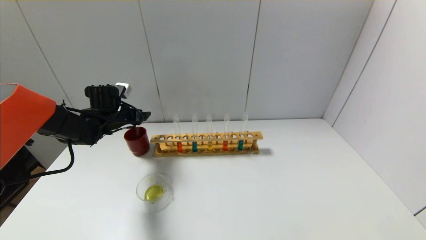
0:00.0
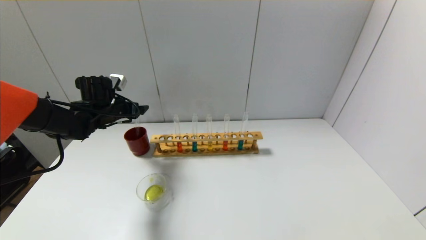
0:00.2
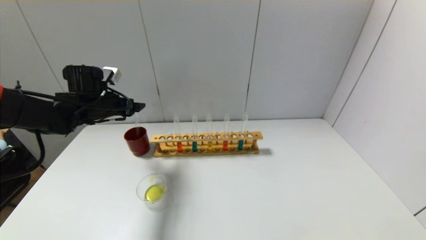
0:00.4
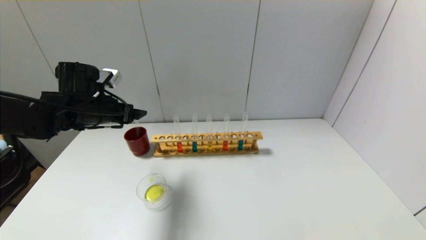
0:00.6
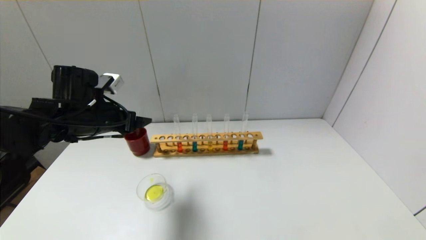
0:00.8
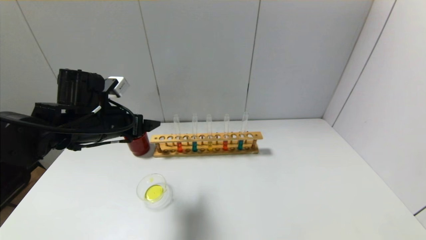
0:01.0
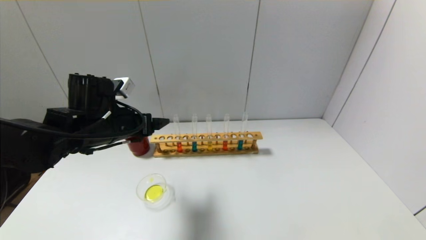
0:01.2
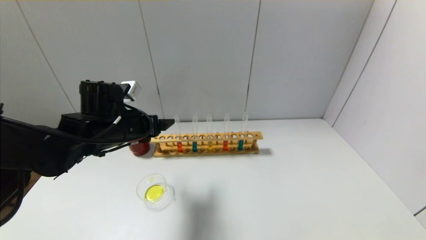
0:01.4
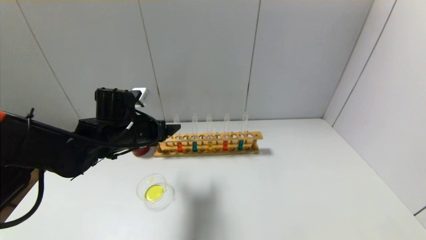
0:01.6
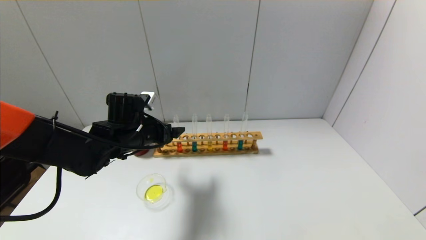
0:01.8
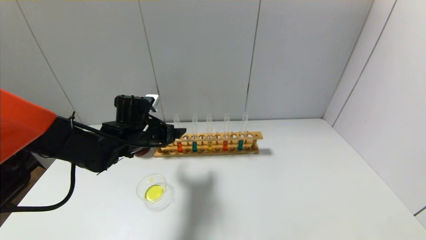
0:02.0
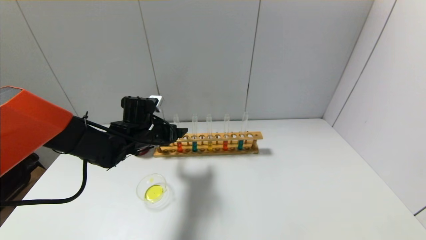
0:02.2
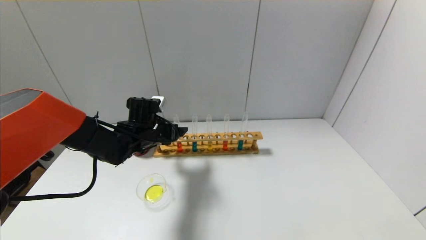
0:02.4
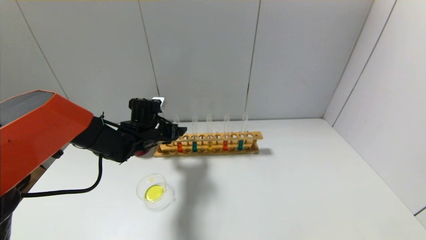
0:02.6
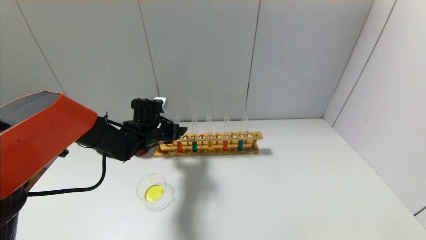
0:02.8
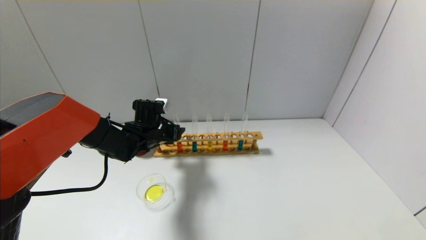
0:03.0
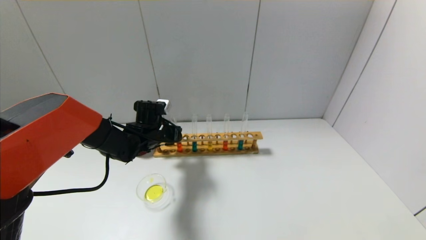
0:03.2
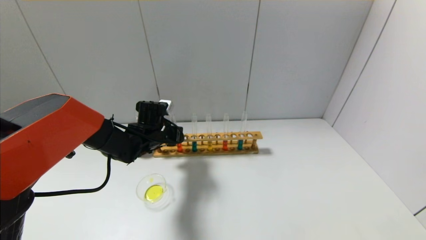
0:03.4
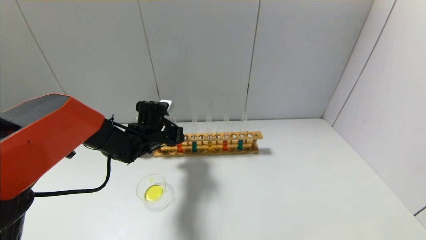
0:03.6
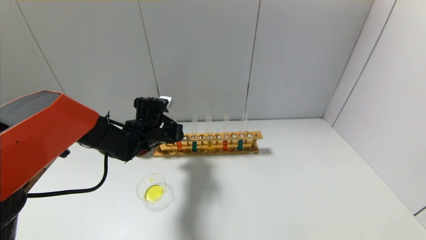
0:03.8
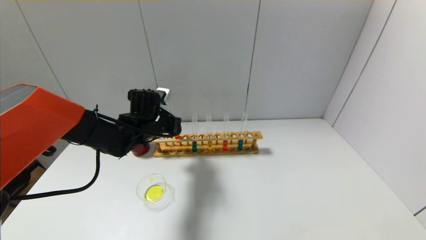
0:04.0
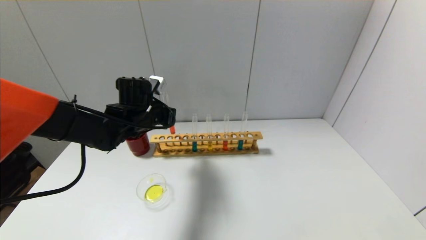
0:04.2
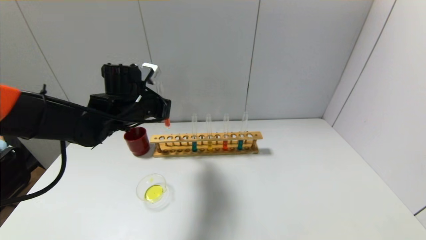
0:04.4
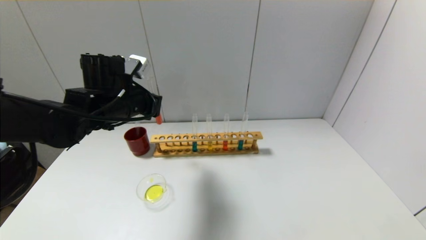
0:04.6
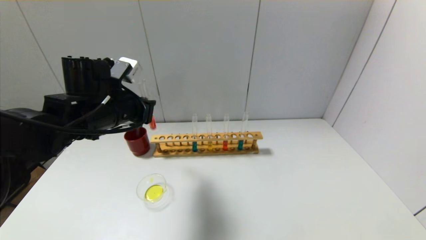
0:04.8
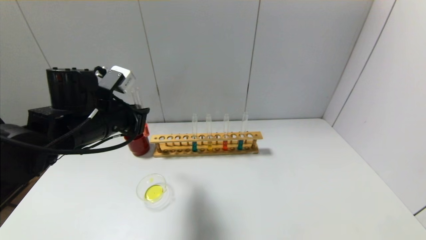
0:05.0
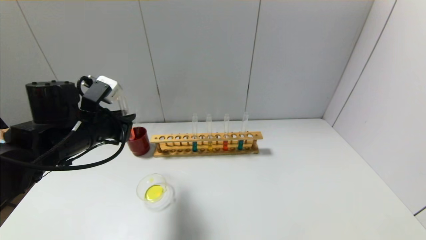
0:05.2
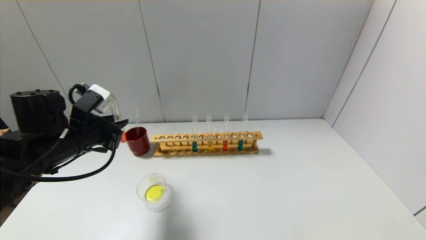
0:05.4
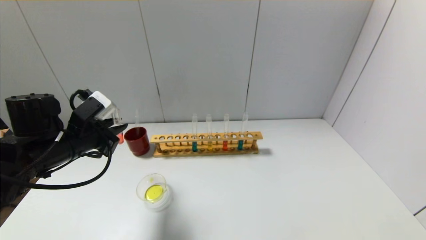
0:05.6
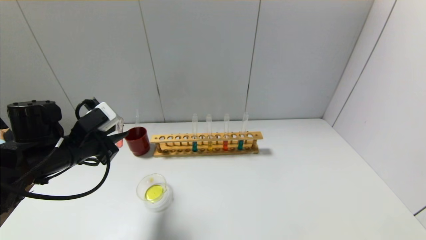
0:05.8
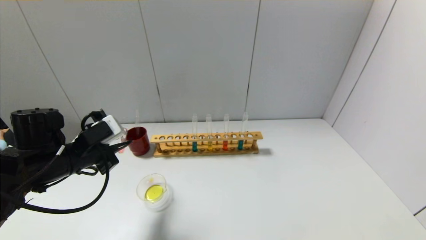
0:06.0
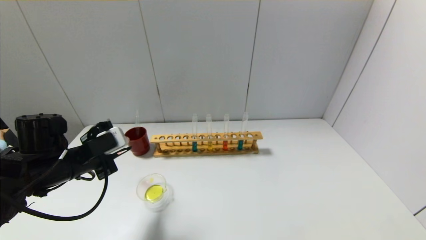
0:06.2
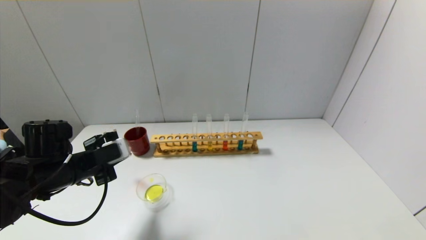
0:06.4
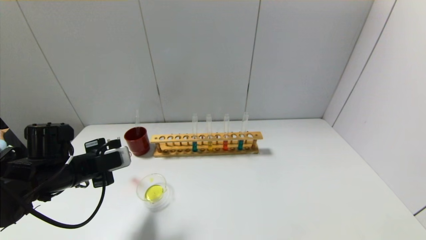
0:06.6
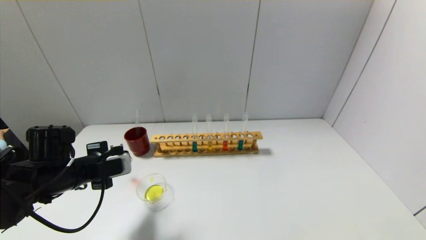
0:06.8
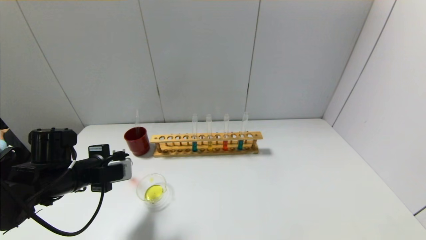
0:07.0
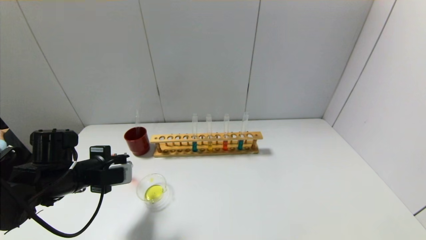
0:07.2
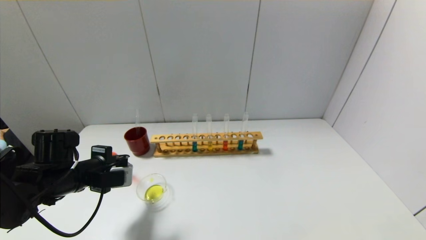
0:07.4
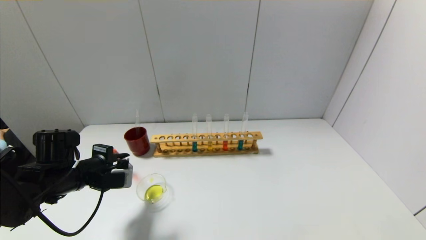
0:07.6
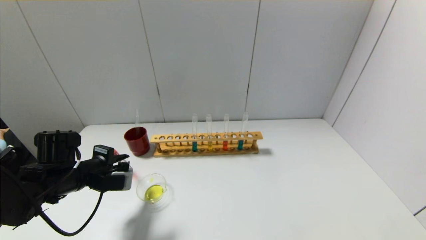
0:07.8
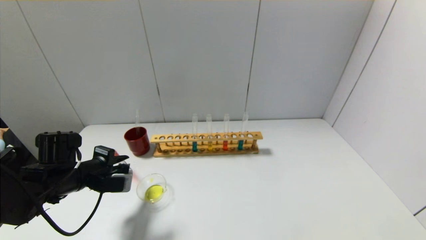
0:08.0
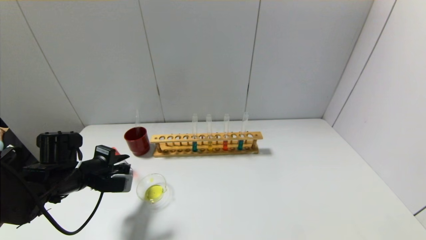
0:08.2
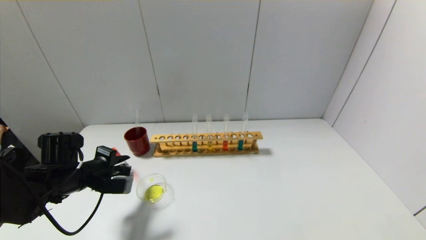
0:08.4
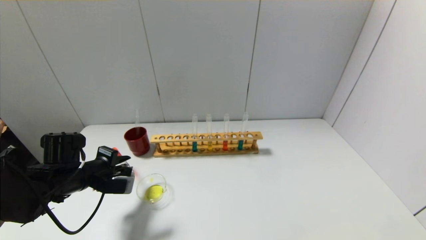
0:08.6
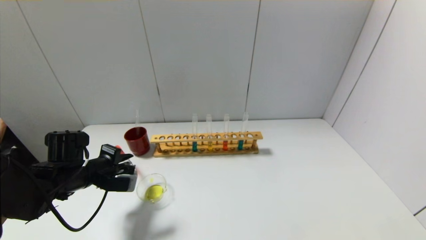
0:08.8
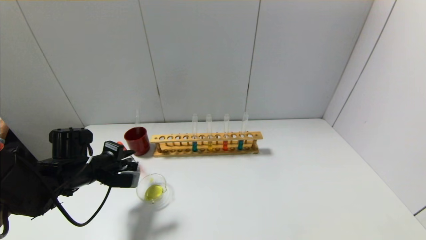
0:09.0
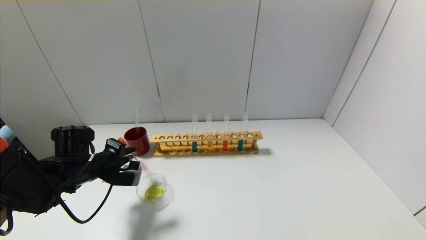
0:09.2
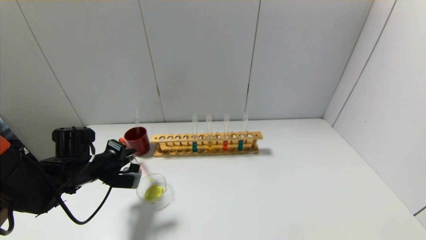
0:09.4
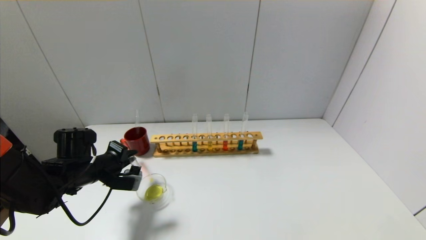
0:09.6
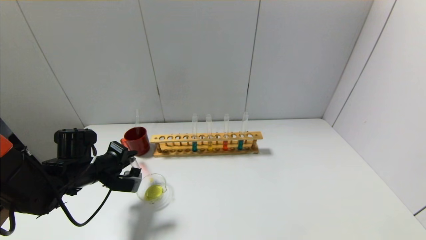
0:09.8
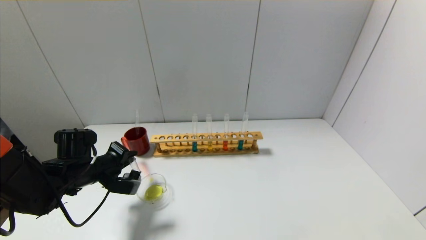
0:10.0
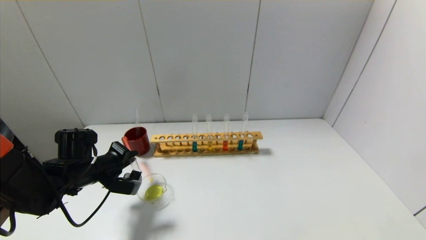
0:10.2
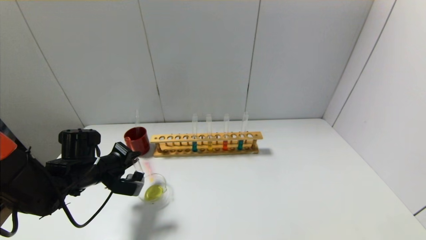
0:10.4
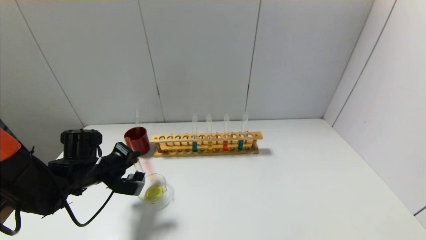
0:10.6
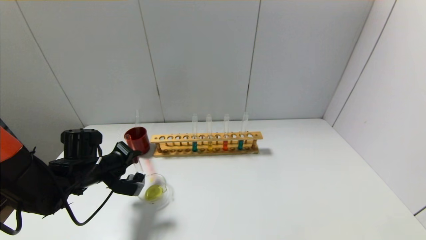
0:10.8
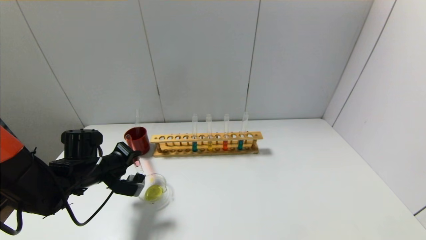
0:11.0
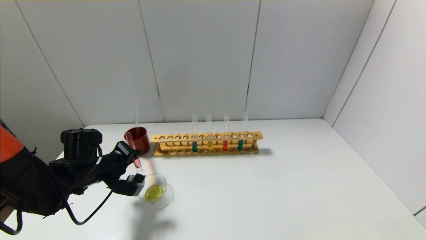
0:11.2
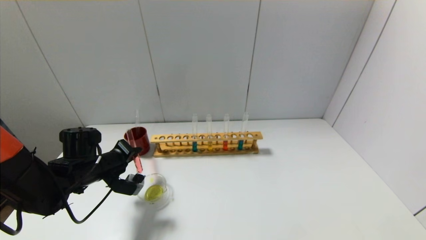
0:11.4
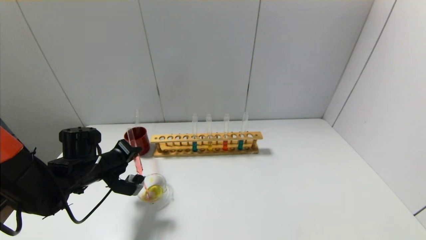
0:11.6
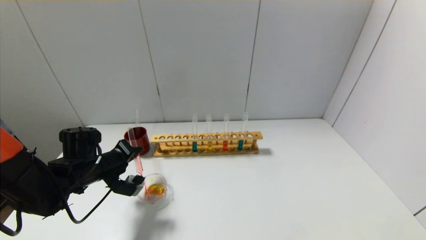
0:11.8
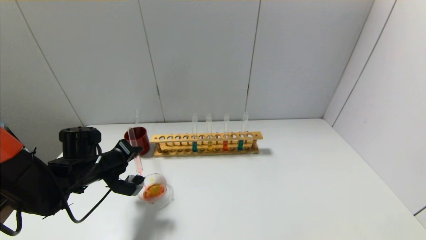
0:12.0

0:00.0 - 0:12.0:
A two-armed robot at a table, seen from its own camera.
Step, 0:00.0 - 0:03.4: Grasp the red reagent with the left gripper.
0:00.0 - 0:01.6: The left gripper heads backward and to the right, covering about 15 cm.
0:01.6 - 0:03.0: The left gripper moves forward and downward, approximately 10 cm.
0:03.0 - 0:04.4: The left gripper goes about 10 cm upward, and closes up.
0:04.4 - 0:06.0: The left gripper heads backward, to the left and downward, covering approximately 15 cm.
0:06.0 - 0:07.6: The left gripper is displaced downward by some 5 cm.
0:07.6 - 0:09.0: The grippers stay close to where they were, moving slightly.
0:09.0 - 0:10.4: The grippers make only small movements.
0:10.4 - 0:12.0: There are only small adjustments of the grippers.

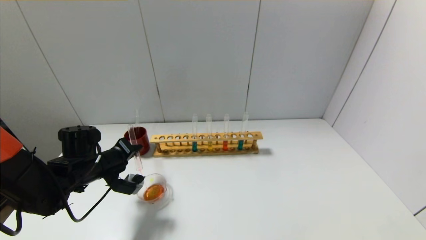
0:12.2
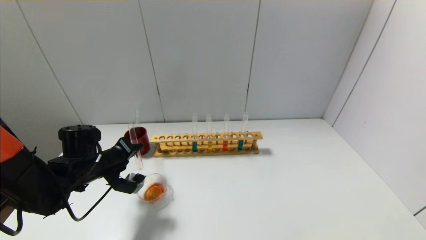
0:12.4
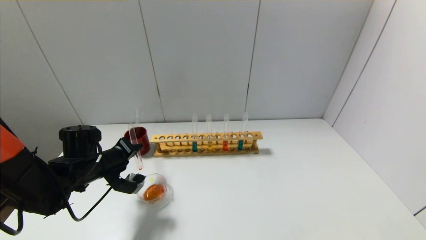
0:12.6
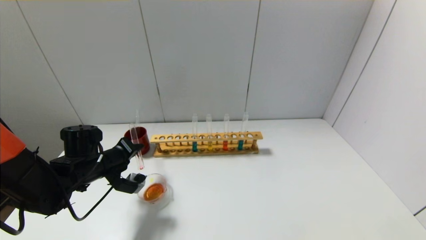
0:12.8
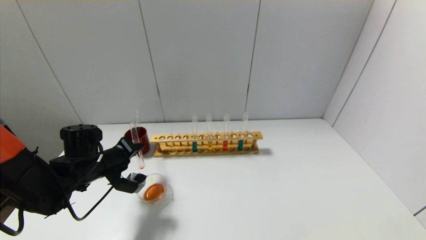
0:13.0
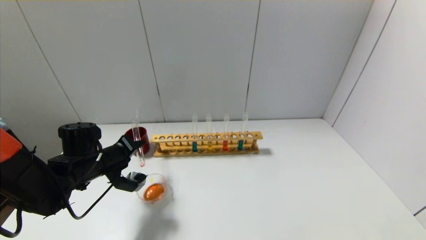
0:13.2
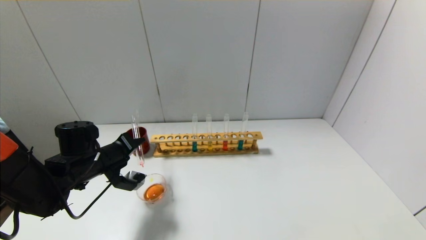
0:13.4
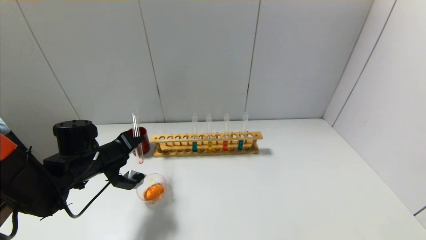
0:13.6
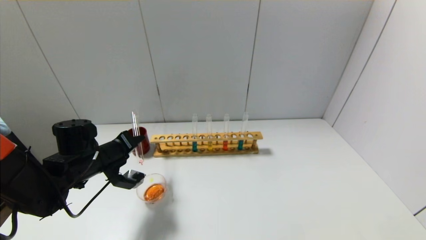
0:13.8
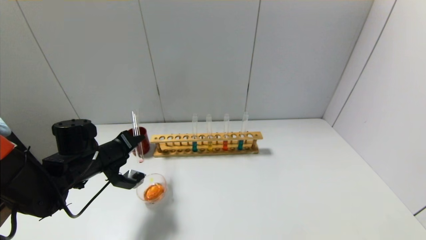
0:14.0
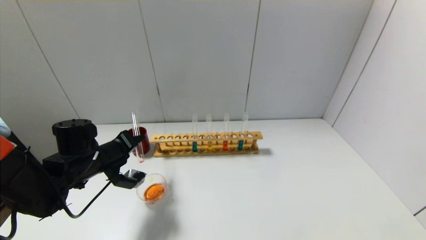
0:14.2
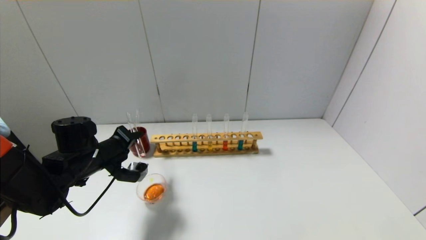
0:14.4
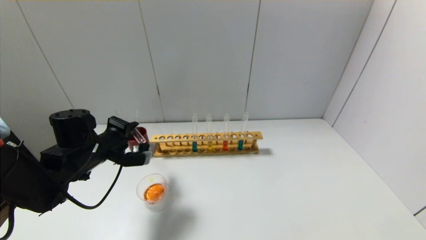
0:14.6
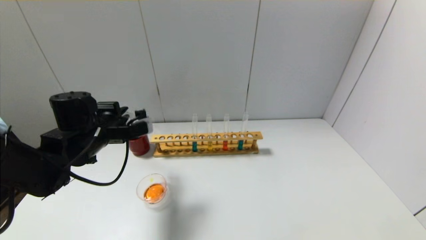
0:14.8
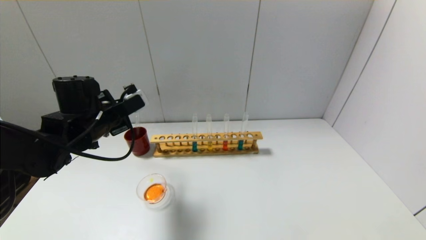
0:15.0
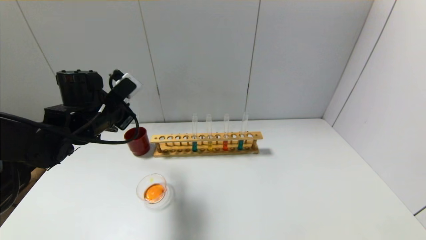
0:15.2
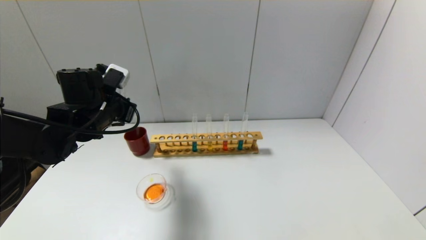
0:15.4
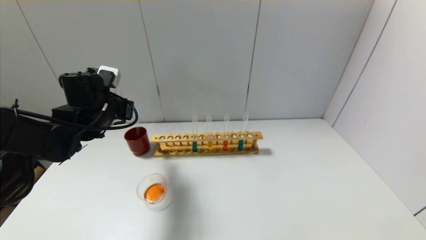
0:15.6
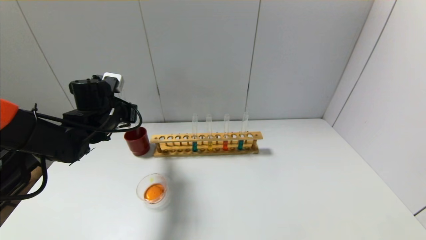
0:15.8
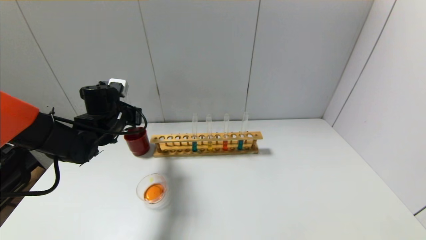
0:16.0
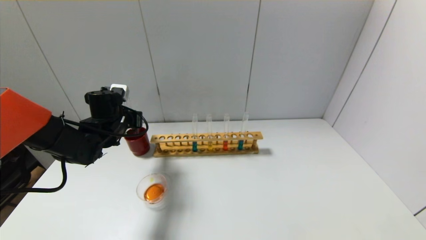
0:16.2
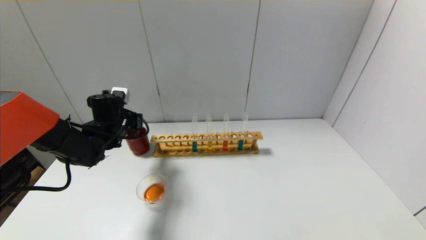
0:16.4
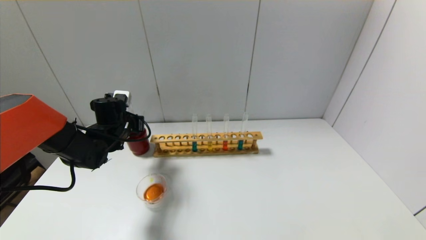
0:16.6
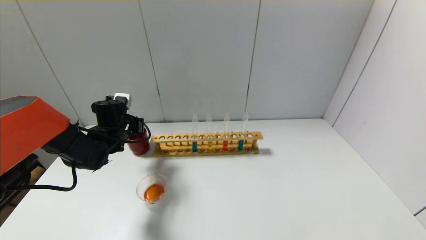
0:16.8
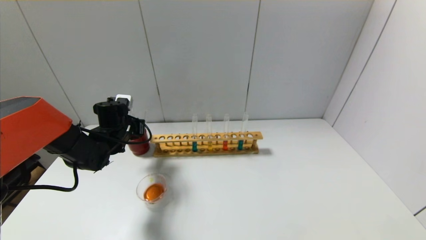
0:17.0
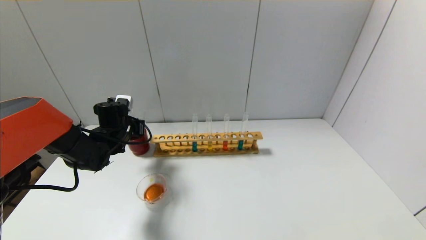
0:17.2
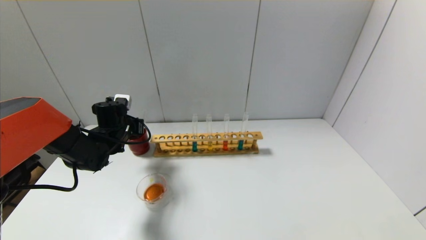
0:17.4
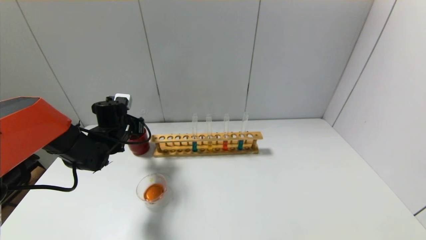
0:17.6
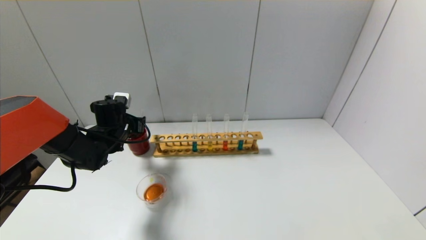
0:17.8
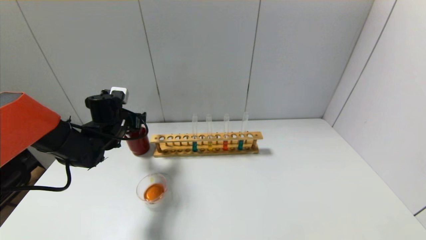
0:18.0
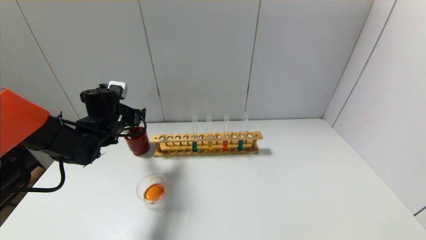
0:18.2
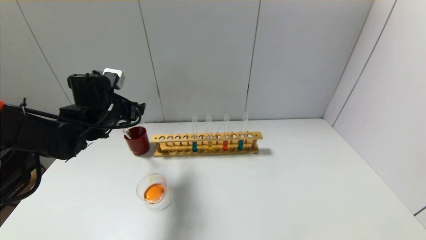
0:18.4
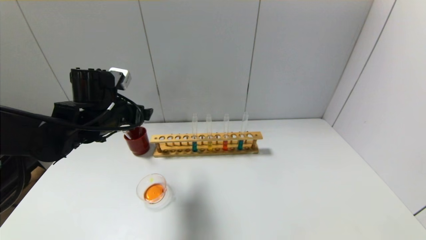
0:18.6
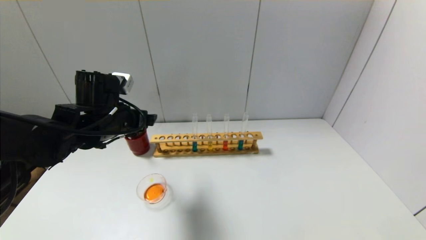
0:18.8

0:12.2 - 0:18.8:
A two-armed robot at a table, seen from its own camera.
Step, 0:12.2 - 0:14.4: Pour the red reagent into the graduated cylinder with the left gripper.
Step, 0:14.6 - 0:17.6: Place the test tube into the brown cup with the left gripper.
0:12.2 - 0:13.8: The grippers stay close to where they were, moving slightly.
0:13.8 - 0:15.4: The left gripper heads upward, covering about 10 cm.
0:15.4 - 0:17.2: The left gripper heads downward and forward, covering some 10 cm.
0:17.2 - 0:18.8: The left gripper heads upward and backward, covering about 15 cm, and opens its fingers.
